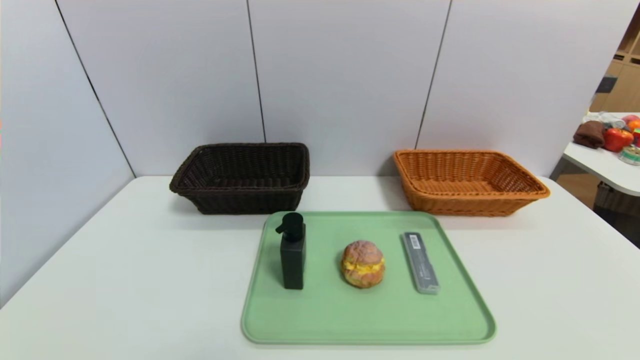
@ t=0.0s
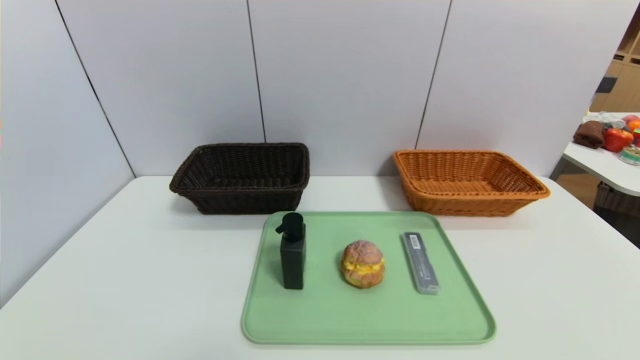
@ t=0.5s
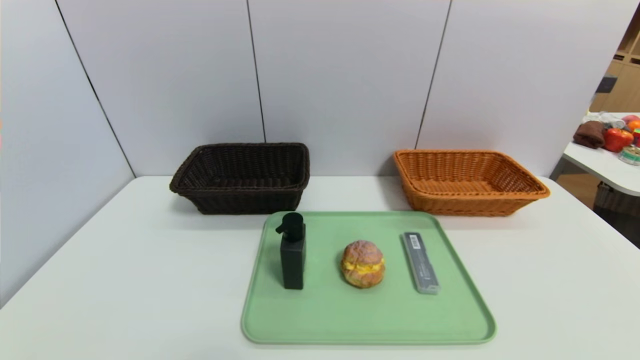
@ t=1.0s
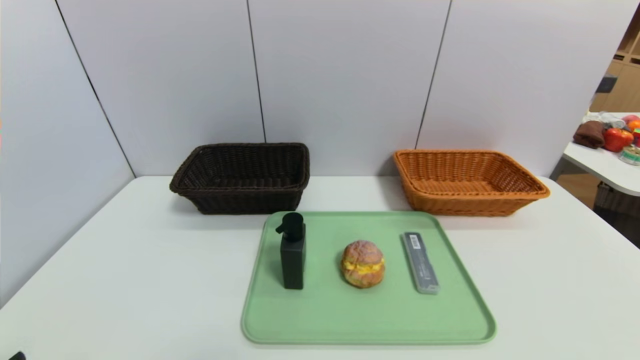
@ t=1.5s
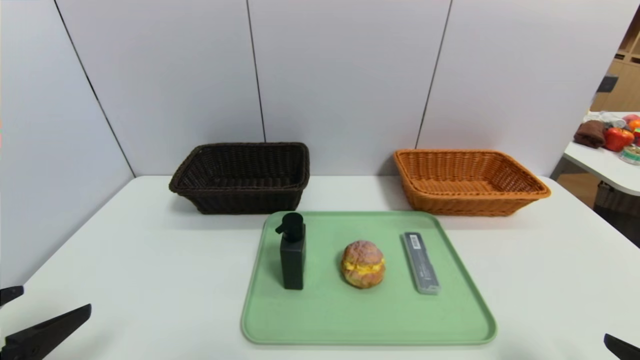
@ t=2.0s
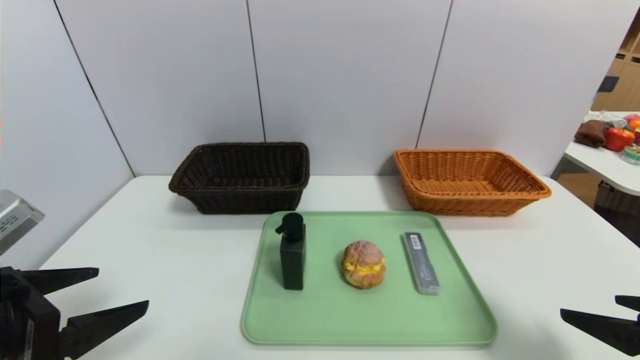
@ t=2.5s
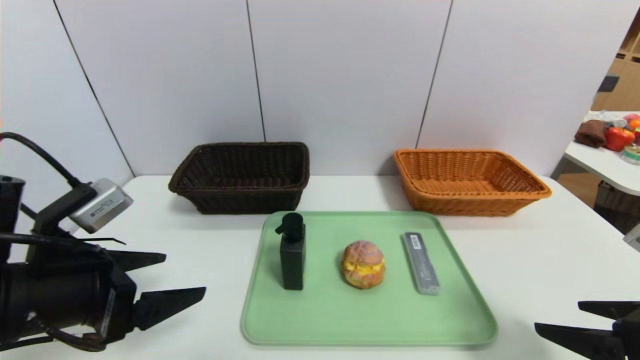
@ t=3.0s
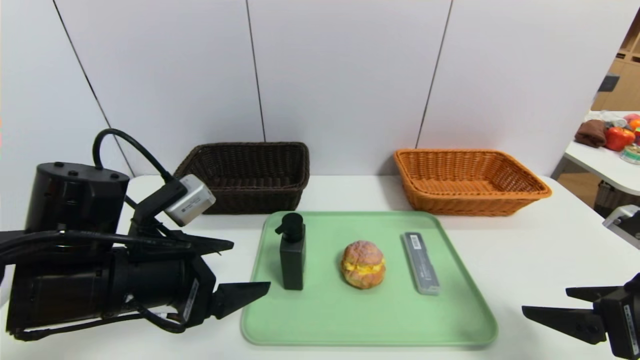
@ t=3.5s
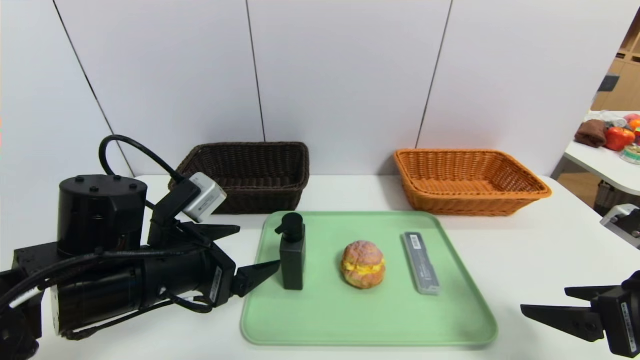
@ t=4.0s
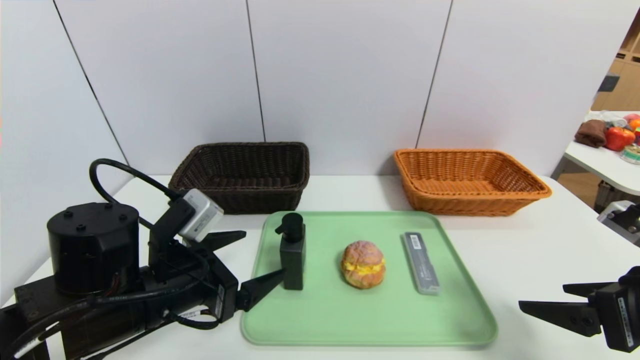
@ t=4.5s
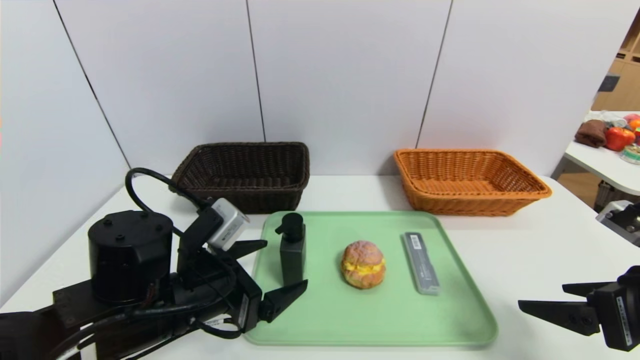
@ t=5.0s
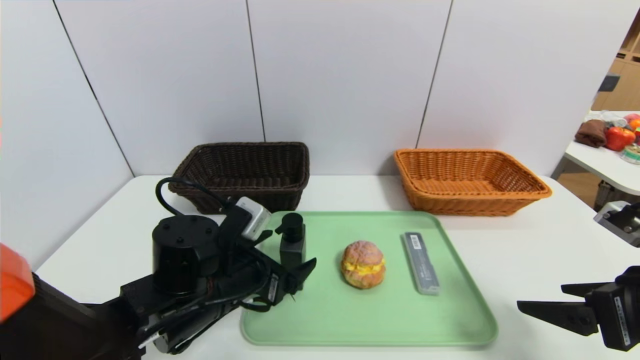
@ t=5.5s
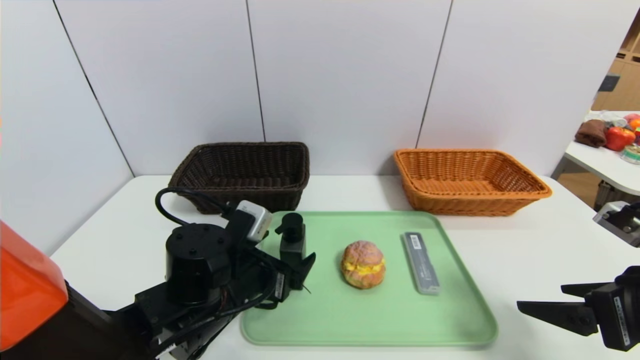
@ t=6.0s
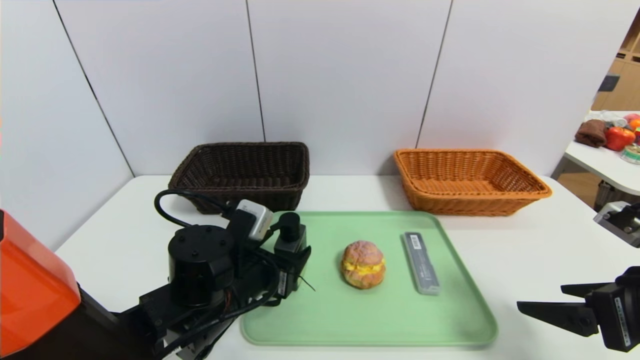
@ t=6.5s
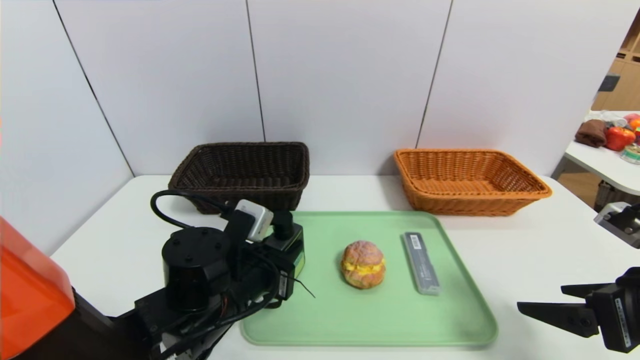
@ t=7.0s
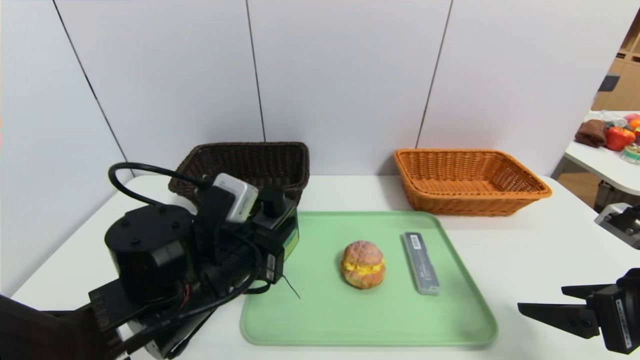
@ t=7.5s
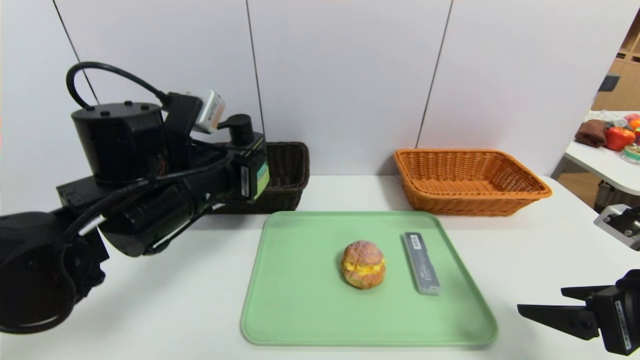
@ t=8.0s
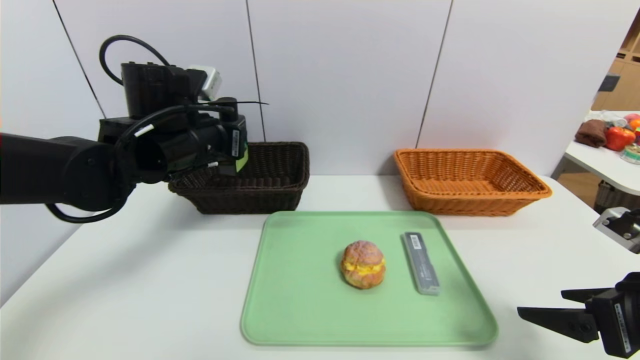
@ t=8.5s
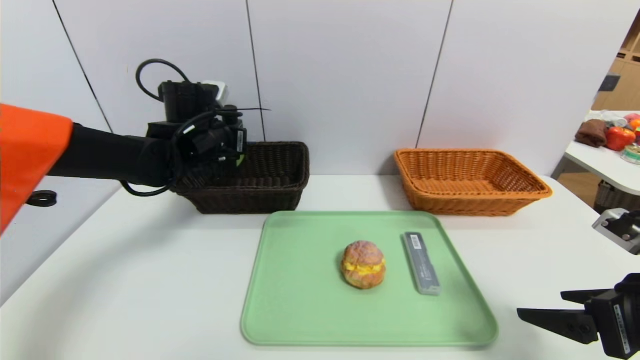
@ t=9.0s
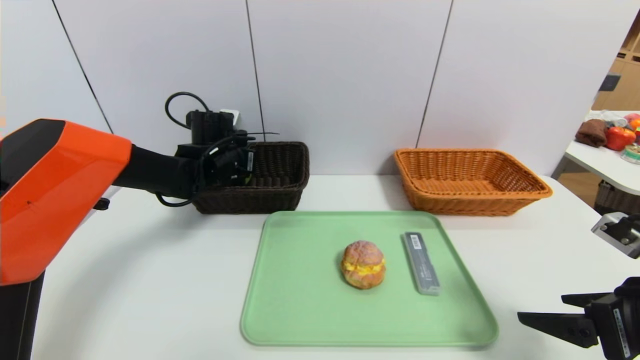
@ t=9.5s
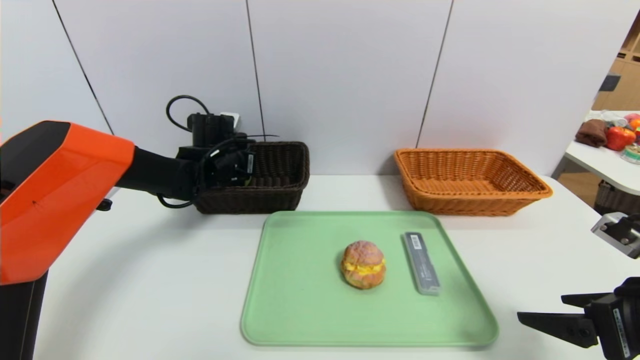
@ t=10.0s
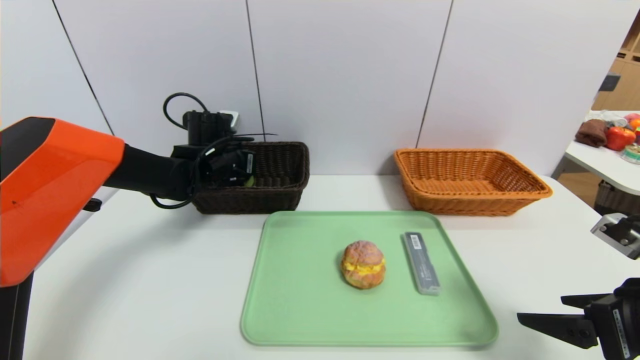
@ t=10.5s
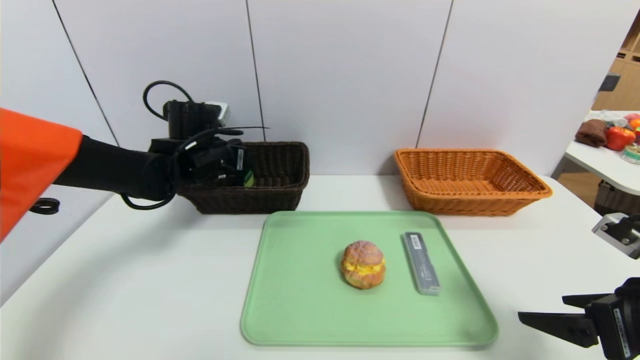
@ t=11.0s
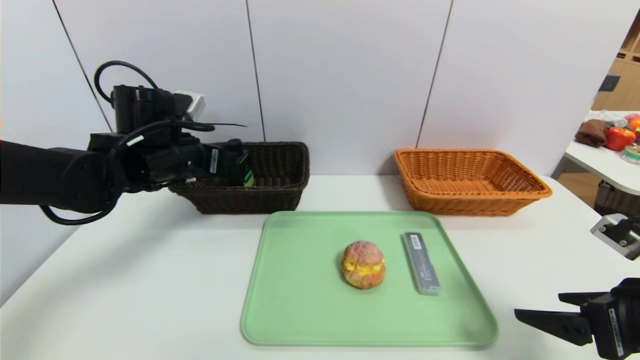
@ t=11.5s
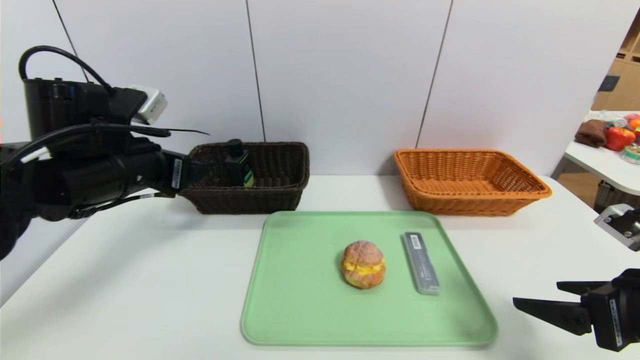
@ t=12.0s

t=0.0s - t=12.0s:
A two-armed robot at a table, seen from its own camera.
Task of the whole recording: place the food in the right basket with the right gripper, and place the non food items in the left basket with the left gripper.
Step, t=0.0s - t=10.5s: Grasp the hard cleanser and put it in the left basket.
t=0.0s - t=2.0s: The grippers both shift upward and forward by roughly 15 cm.
t=2.0s - t=4.0s: The left gripper shifts about 20 cm forward and to the right, while the right gripper shifts approximately 10 cm forward.
t=4.0s - t=6.0s: The left gripper shifts approximately 10 cm downward and to the right.
t=6.0s - t=8.0s: The left gripper shifts approximately 10 cm upward, and closes up.
t=8.0s - t=10.0s: The left gripper goes roughly 20 cm forward.
t=10.0s - t=12.0s: The left gripper shifts roughly 20 cm backward and upward, and opens up.

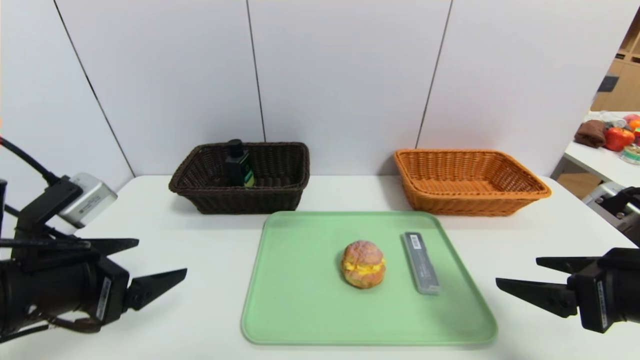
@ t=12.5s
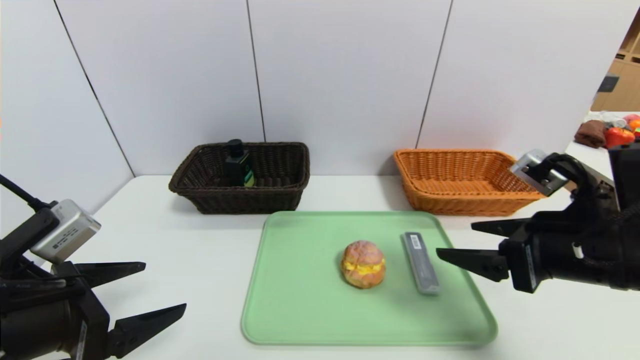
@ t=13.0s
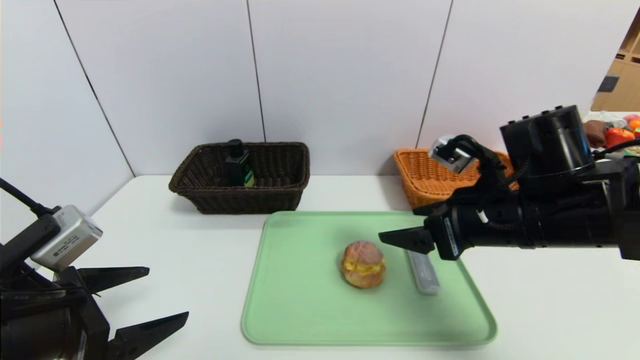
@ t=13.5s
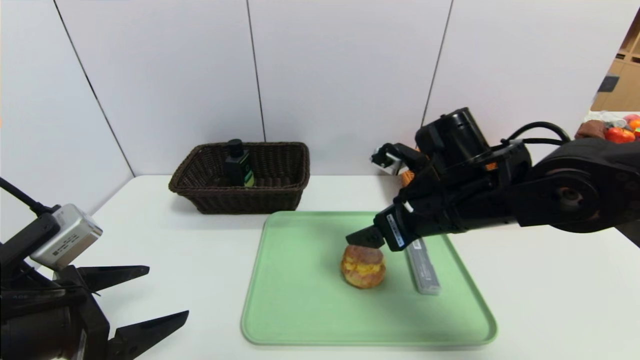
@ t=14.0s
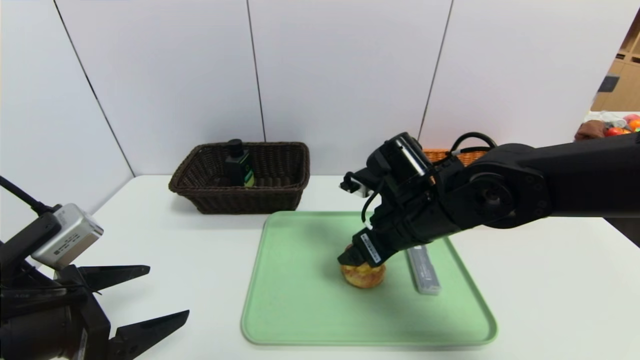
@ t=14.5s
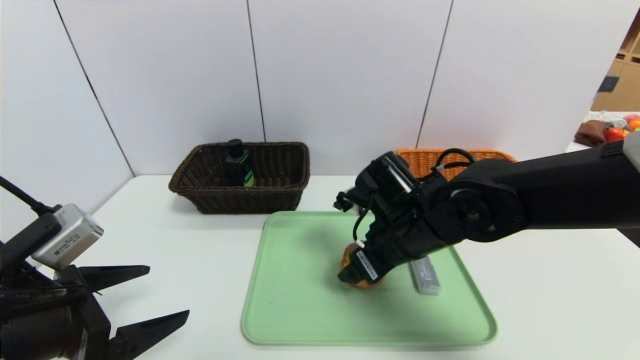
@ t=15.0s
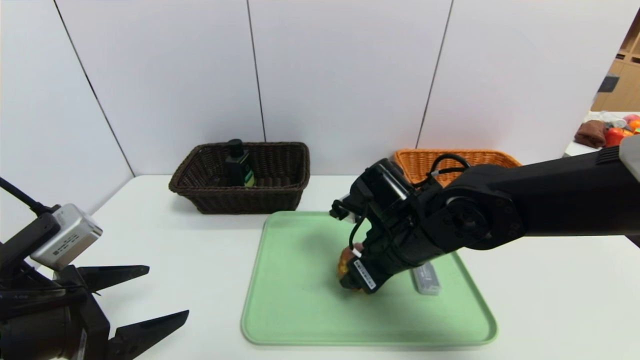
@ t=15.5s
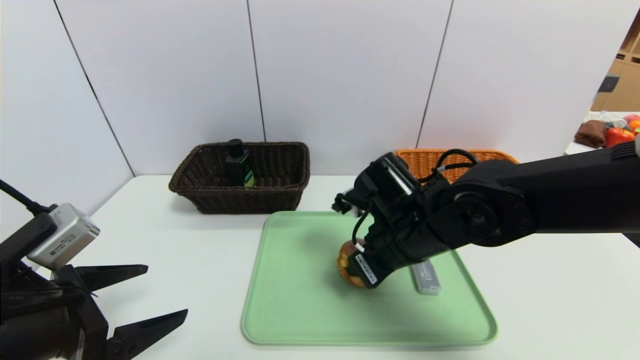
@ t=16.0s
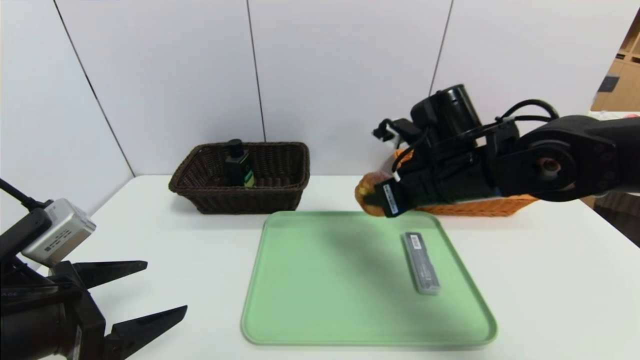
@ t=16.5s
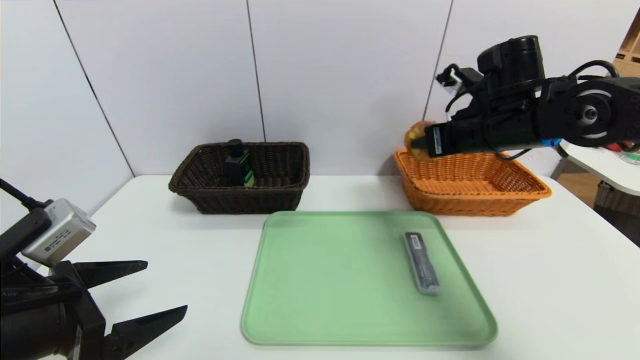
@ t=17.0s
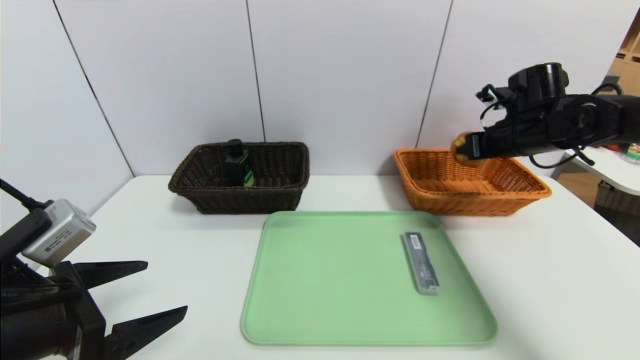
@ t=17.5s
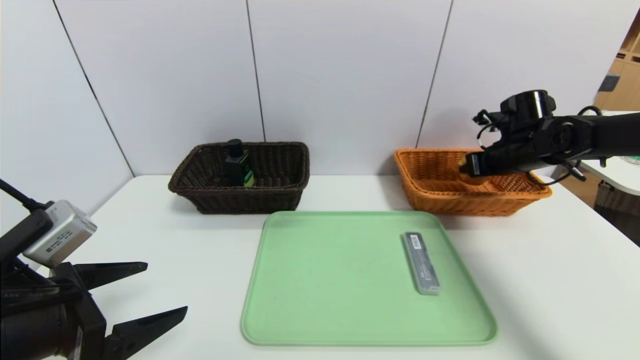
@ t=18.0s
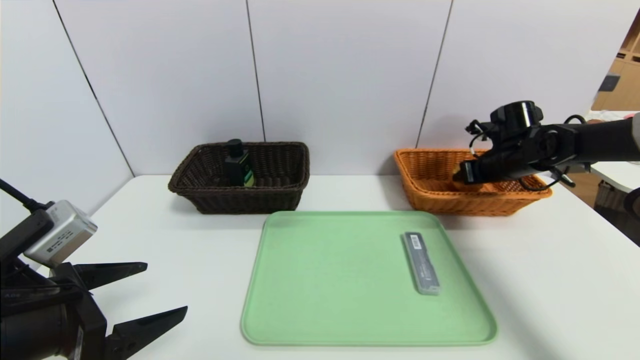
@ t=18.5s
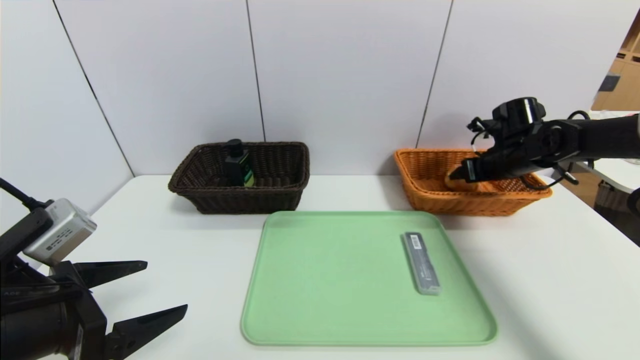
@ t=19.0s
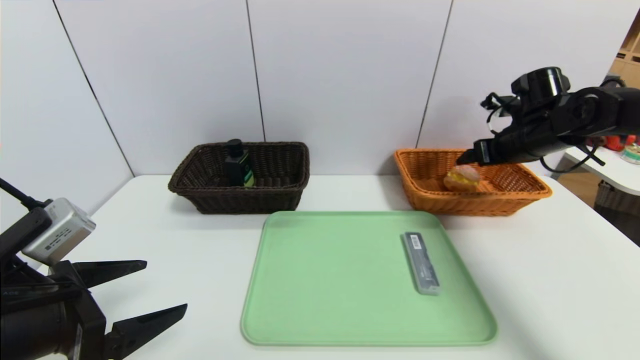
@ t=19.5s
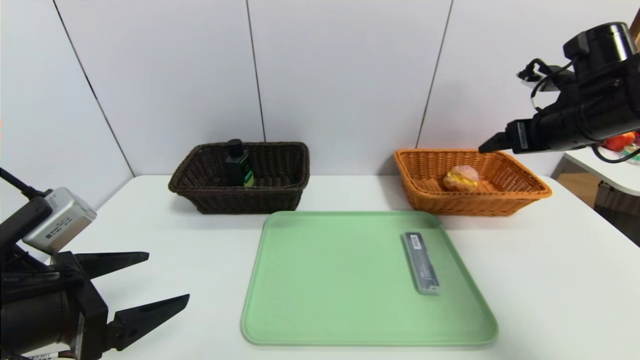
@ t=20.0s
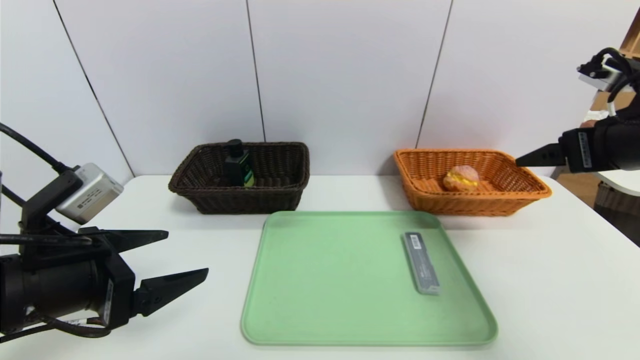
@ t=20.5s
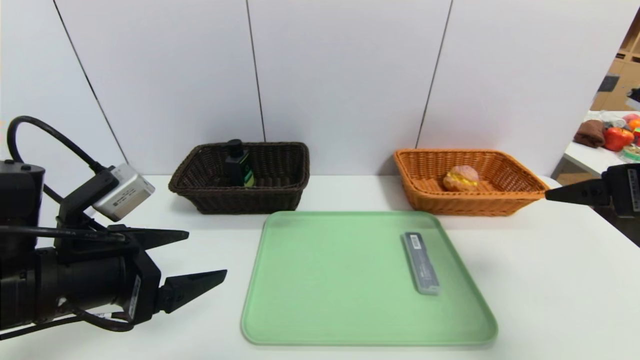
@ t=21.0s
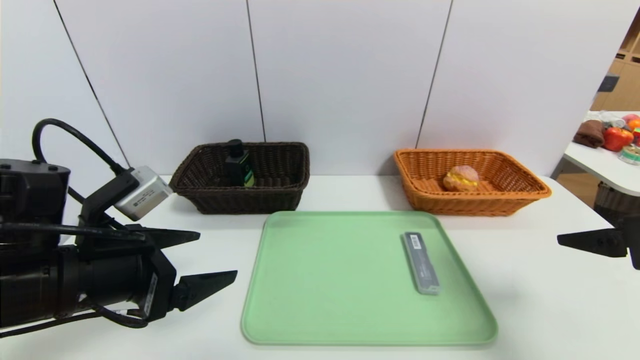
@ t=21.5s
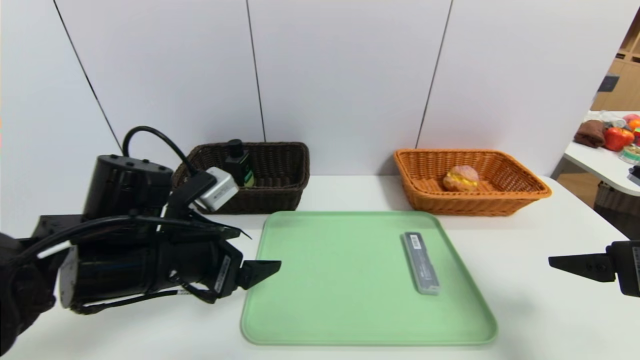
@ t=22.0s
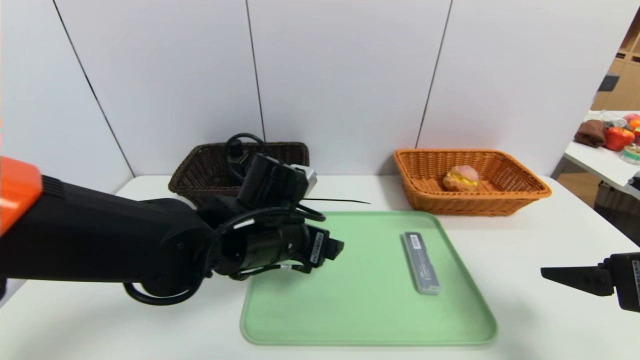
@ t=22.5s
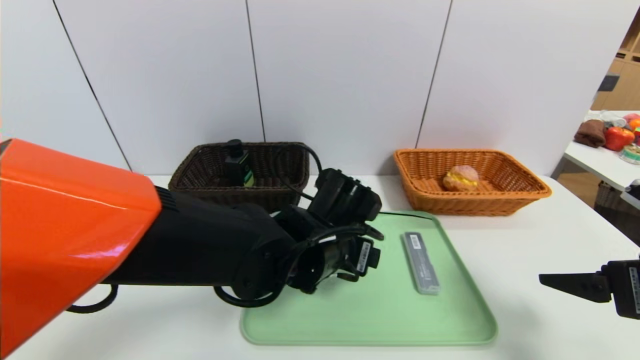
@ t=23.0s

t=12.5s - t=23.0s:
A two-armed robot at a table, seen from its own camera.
Task of the whole recording: place the food in the right basket with the right gripper, and place the non food items in the left basket with the left gripper.
Step, t=12.5s - t=19.0s: Grasp the yellow cake and put it in the right basket.
t=12.5s - t=14.5s: The right gripper moves to the left and forward, some 25 cm.
t=14.5s - t=16.5s: The right gripper moves upward, approximately 5 cm, and closes.
t=16.5s - t=19.0s: The right gripper shifts some 25 cm to the right and forward, and opens up.
t=19.0s - t=21.0s: The left gripper ends up approximately 5 cm from where it was. The right gripper moves backward and upward, about 30 cm.
t=21.0s - t=23.0s: The left gripper moves to the right, some 25 cm. The right gripper shifts about 5 cm downward.
